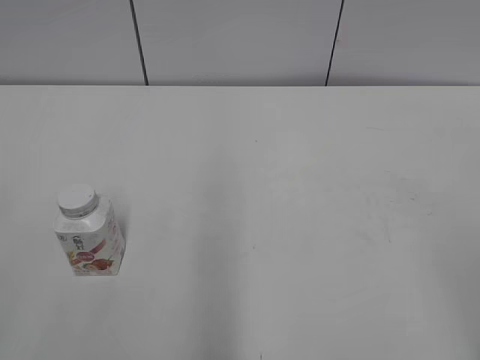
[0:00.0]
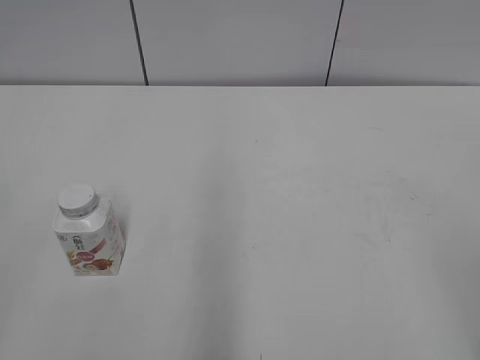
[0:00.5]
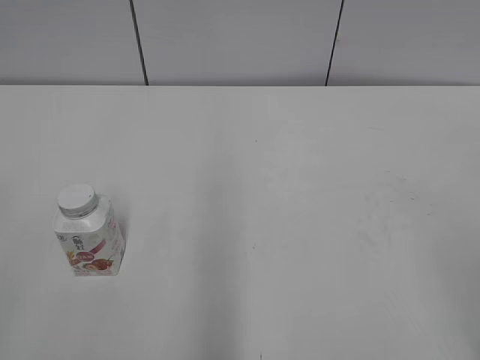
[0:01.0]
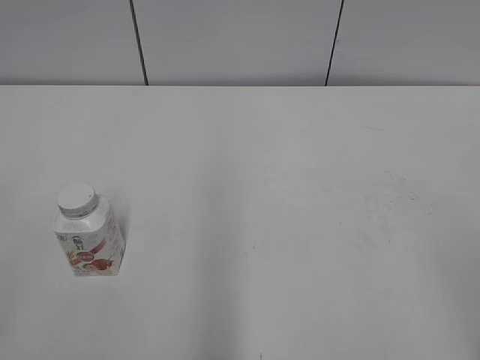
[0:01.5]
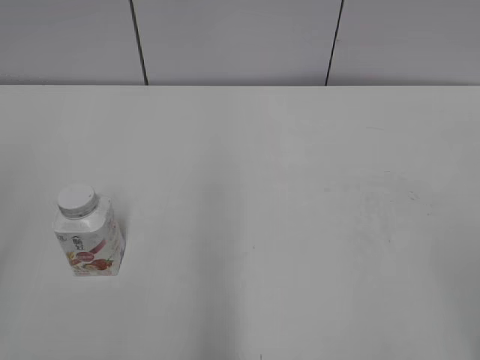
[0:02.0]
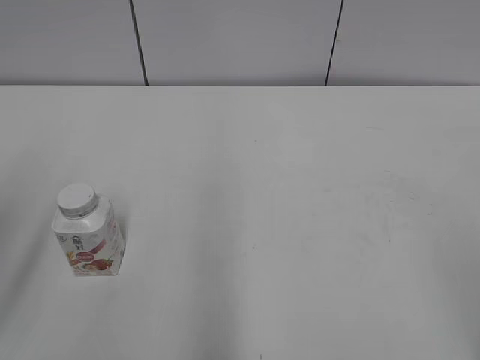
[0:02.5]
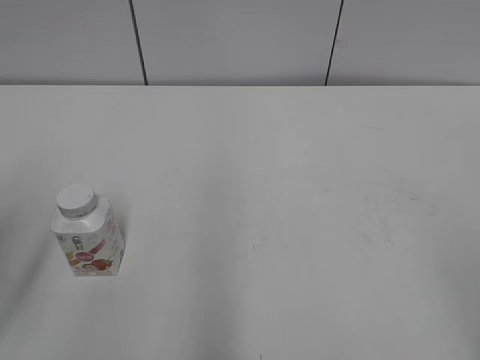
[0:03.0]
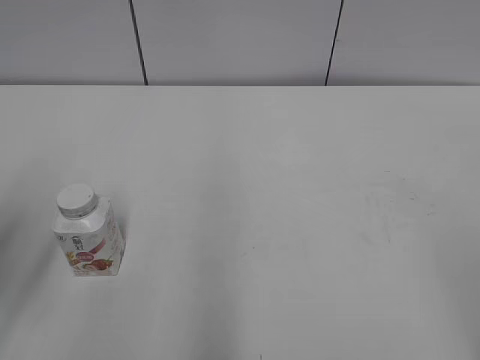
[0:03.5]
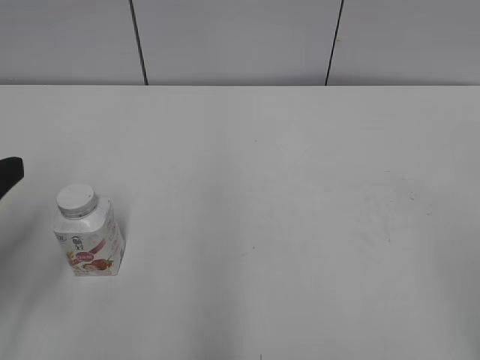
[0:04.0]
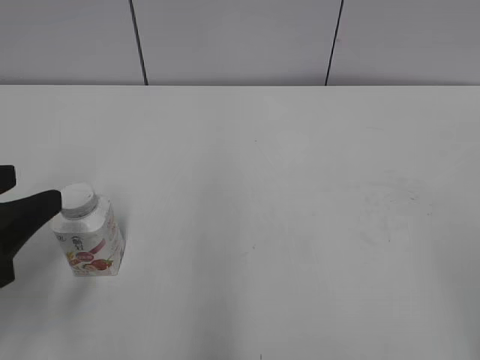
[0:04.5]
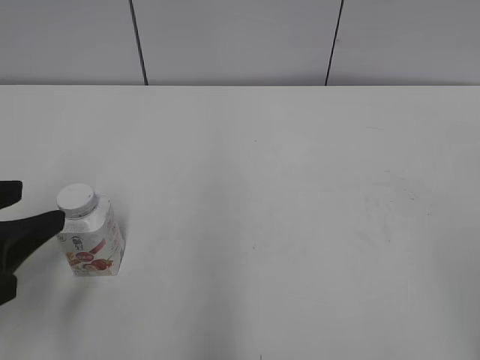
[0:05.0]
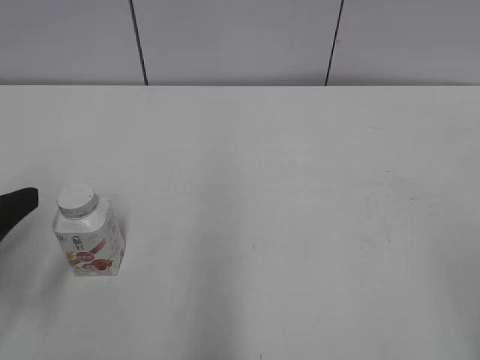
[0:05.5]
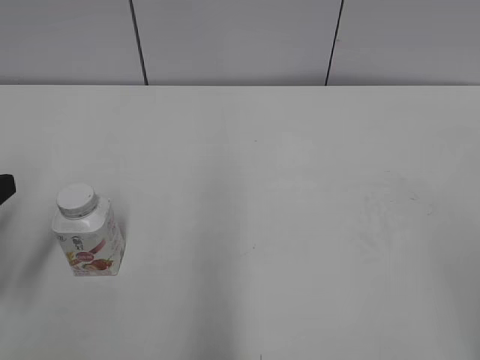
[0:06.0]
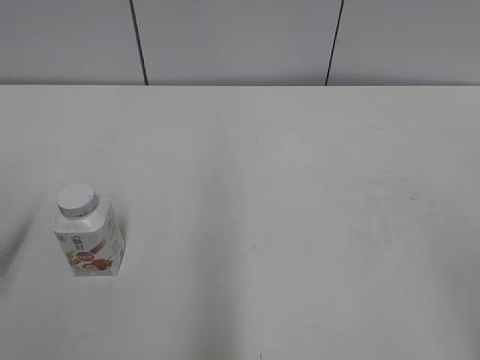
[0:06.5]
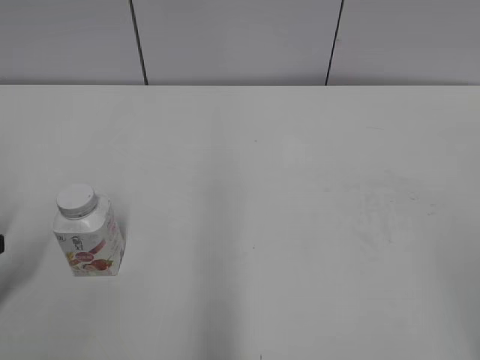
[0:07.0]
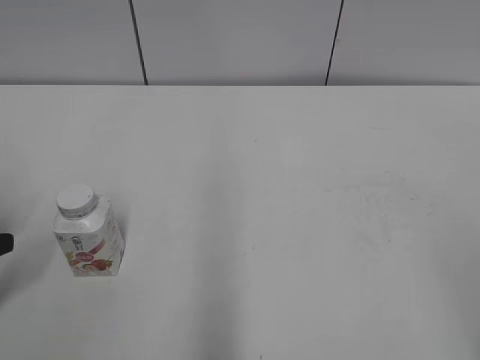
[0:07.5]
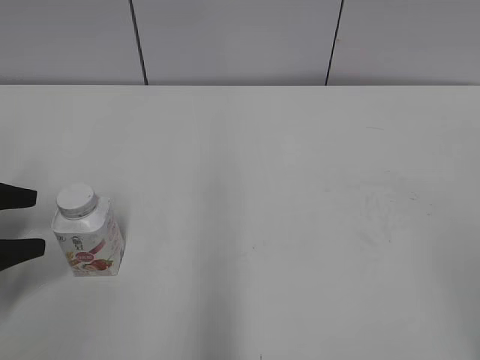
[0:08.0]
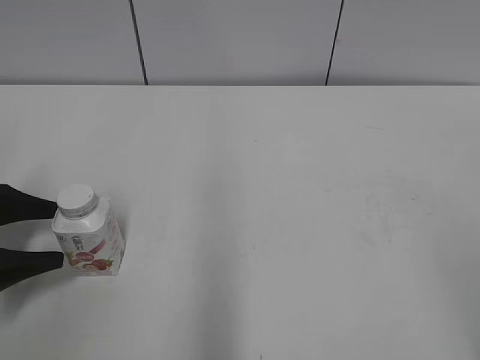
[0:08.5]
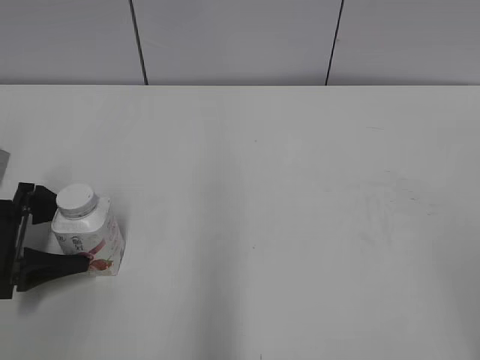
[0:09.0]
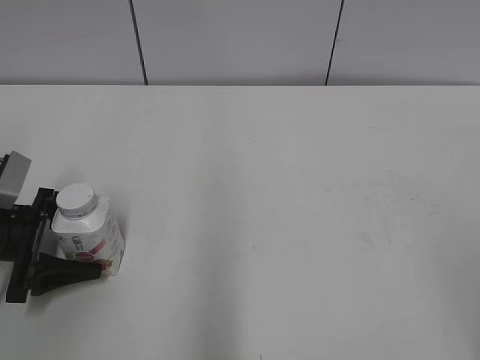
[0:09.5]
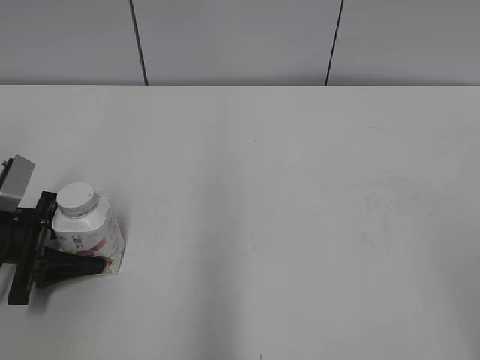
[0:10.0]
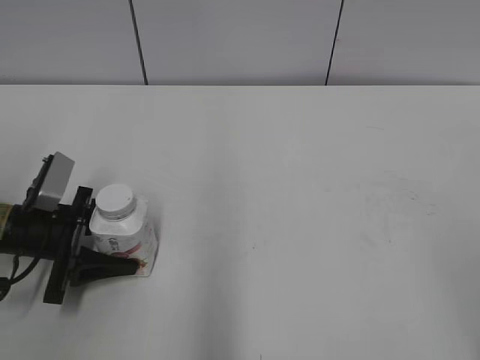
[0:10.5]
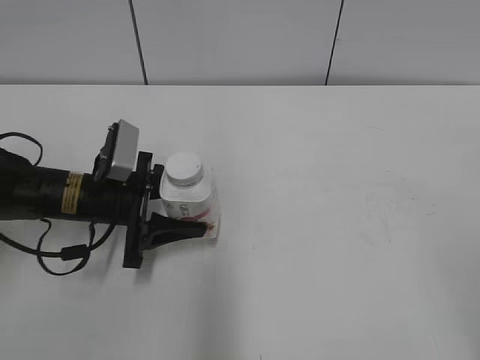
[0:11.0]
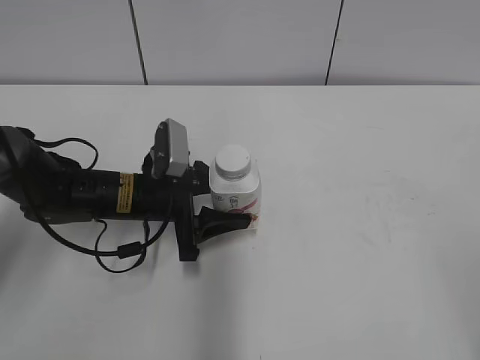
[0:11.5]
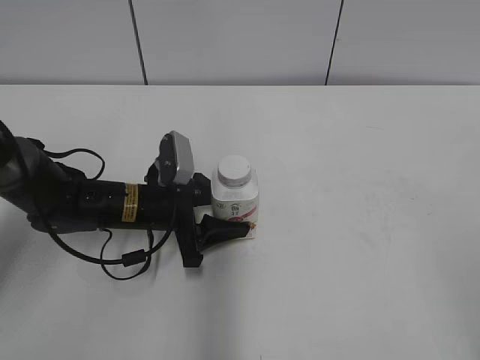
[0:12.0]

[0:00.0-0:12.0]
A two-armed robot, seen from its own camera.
Step, 0:00.0 to 0:10.0: Grasp the bottle and move it to the center of the table with the left gripper.
0:02.0 to 0:04.0: The left gripper travels downward and forward by some 15 cm.
0:04.0 to 0:06.0: The left gripper shifts by approximately 5 cm, and opens up.
0:06.0 to 0:08.0: The left gripper is displaced downward and forward by roughly 10 cm.
0:08.0 to 0:10.0: The left gripper goes approximately 5 cm downward, and closes its fingers.
0:10.0 to 0:12.0: The left gripper travels to the right by approximately 20 cm.

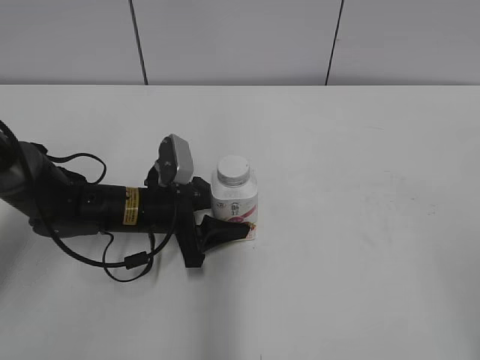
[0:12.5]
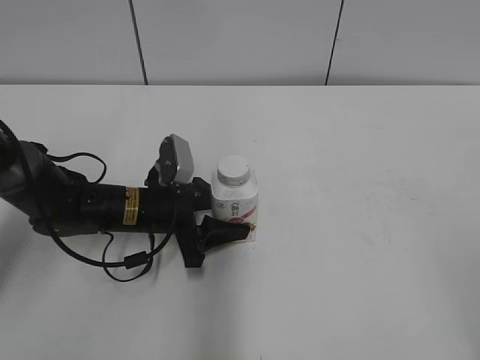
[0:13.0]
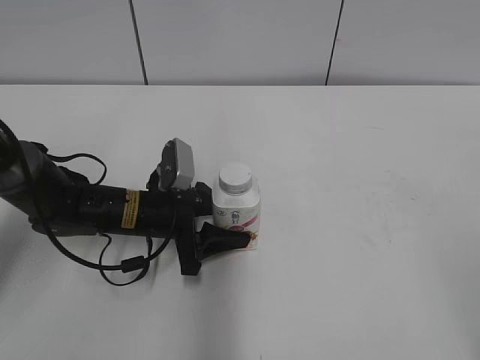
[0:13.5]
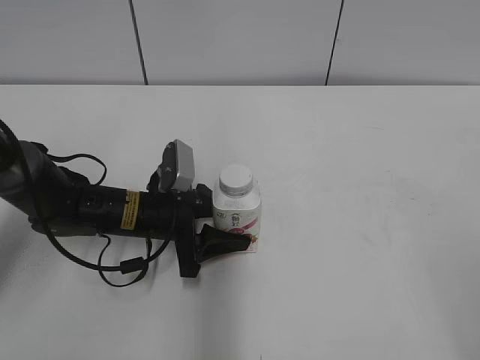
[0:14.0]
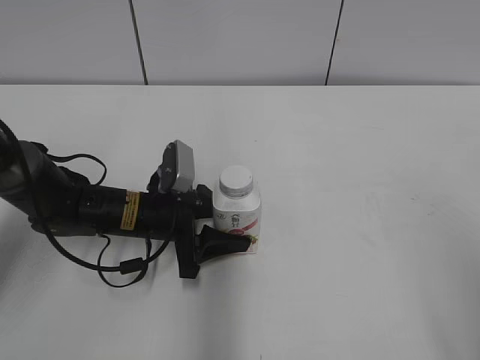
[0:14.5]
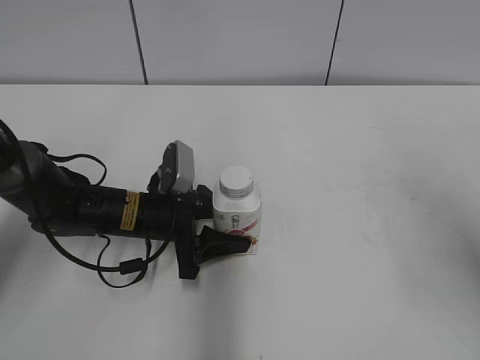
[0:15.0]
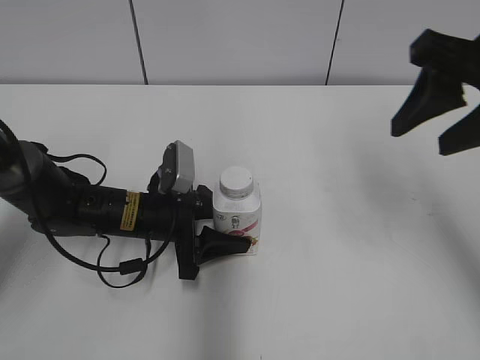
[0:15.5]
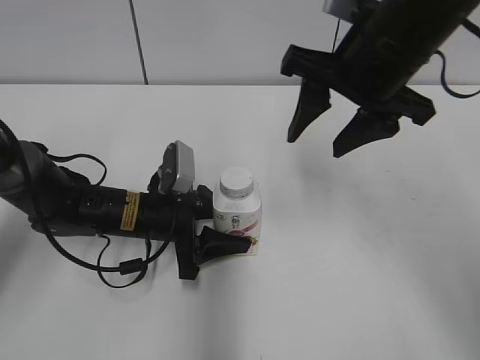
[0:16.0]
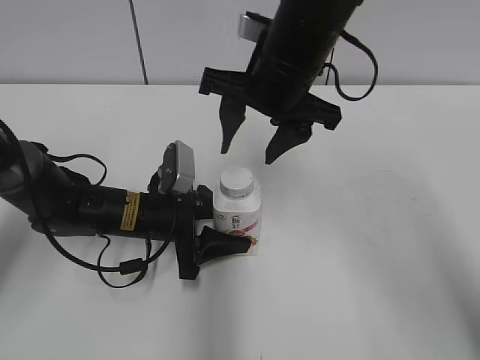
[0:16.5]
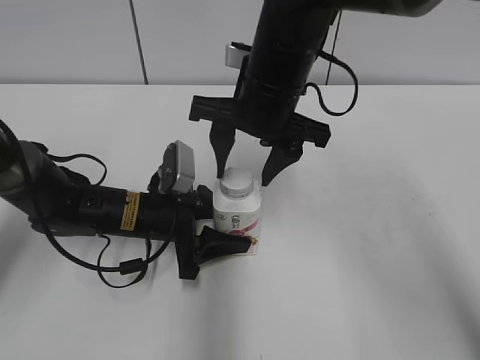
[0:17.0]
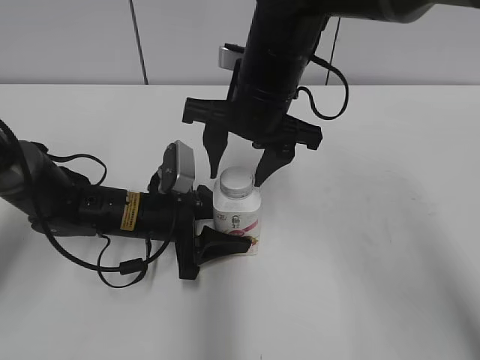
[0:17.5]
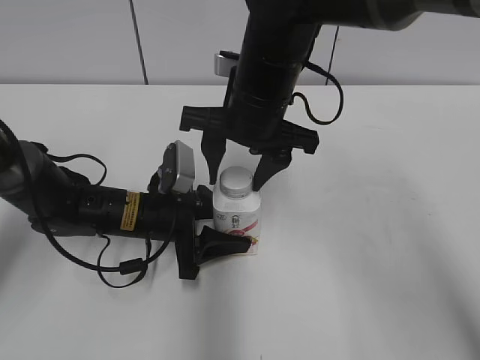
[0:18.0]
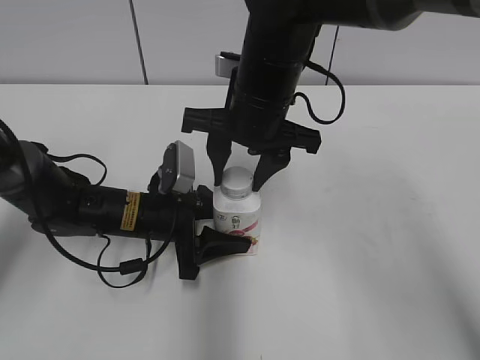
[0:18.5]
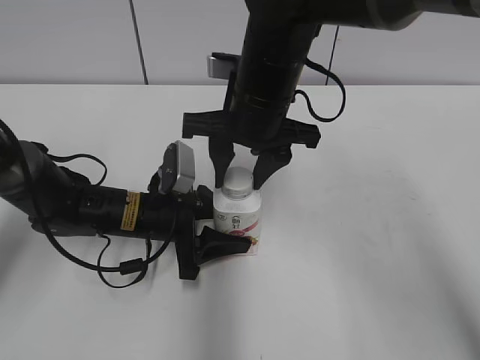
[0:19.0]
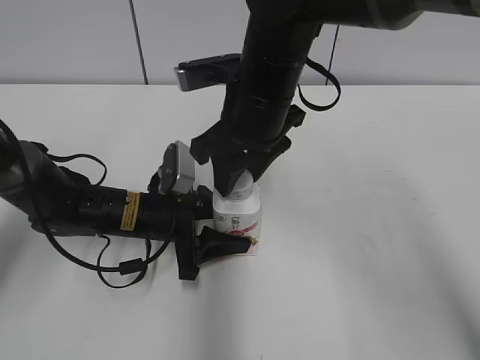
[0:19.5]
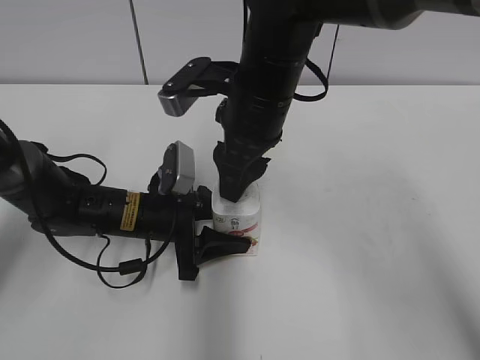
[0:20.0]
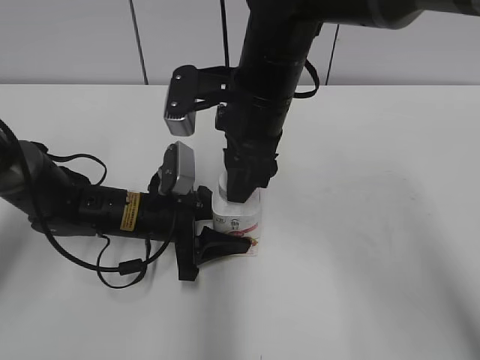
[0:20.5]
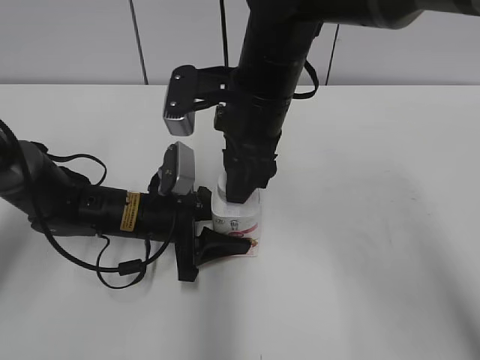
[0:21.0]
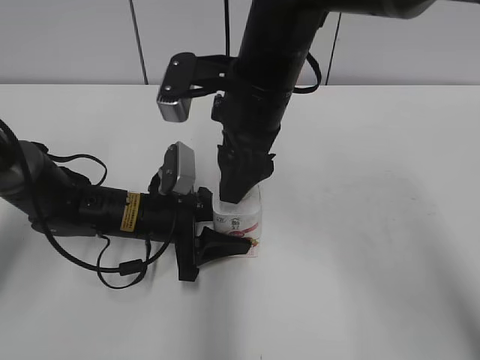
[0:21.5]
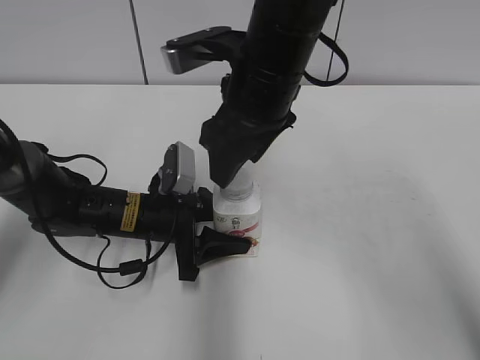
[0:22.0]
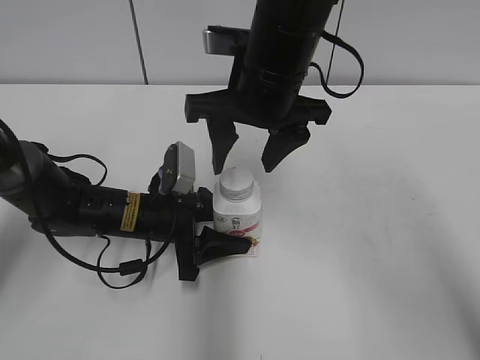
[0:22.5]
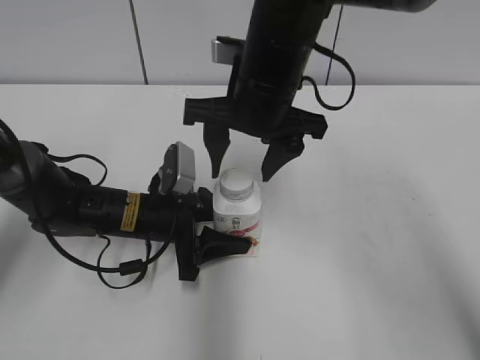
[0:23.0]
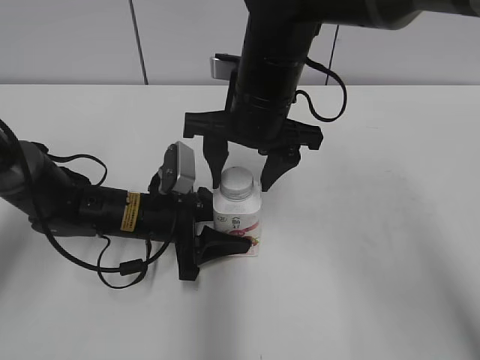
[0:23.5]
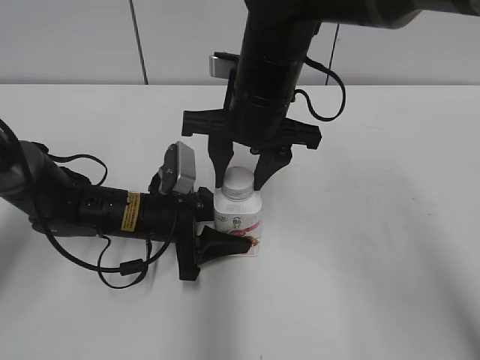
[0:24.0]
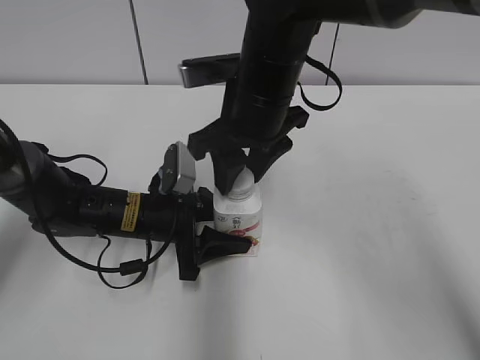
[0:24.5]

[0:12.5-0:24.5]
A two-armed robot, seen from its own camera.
0:12.5 to 0:14.5: The right gripper ends up roughly 5 cm from where it was.
0:14.5 to 0:16.5: The right gripper shifts some 35 cm forward and to the left.
0:16.5 to 0:18.5: The right gripper closes up.
0:20.5 to 0:22.5: The right gripper opens.
0:22.5 to 0:24.5: The right gripper closes.

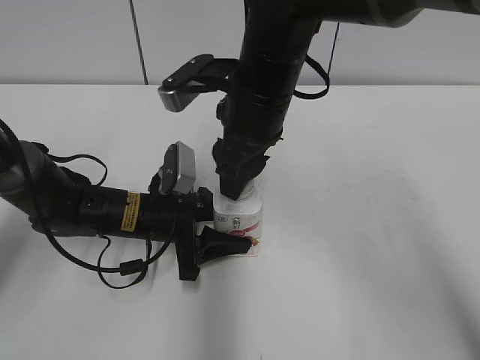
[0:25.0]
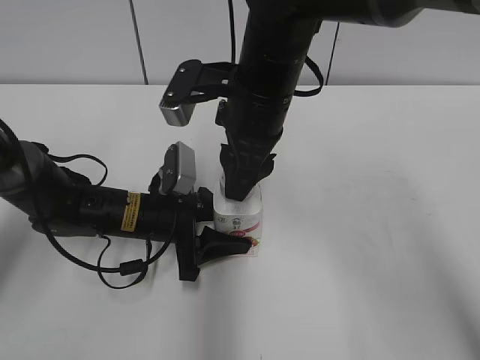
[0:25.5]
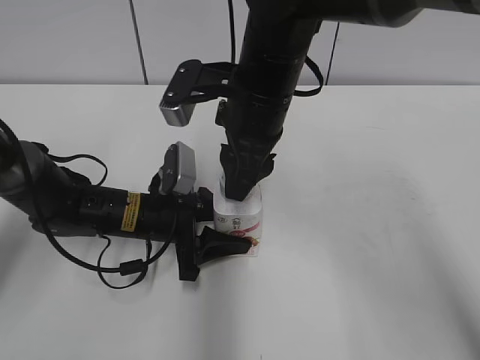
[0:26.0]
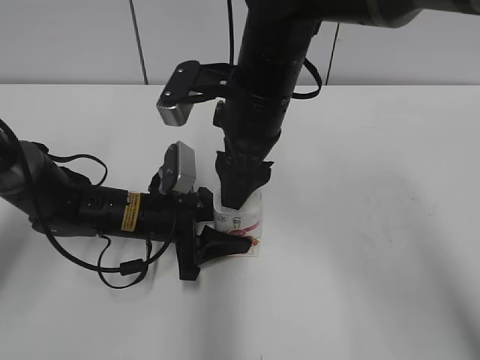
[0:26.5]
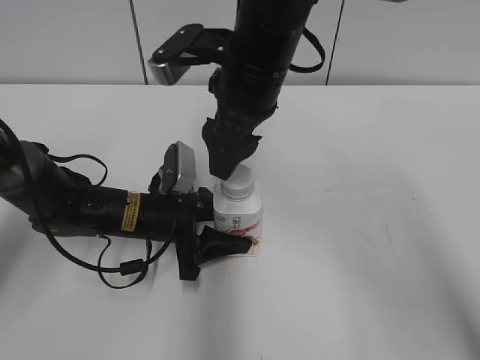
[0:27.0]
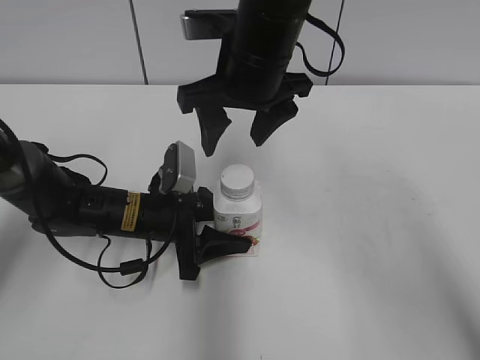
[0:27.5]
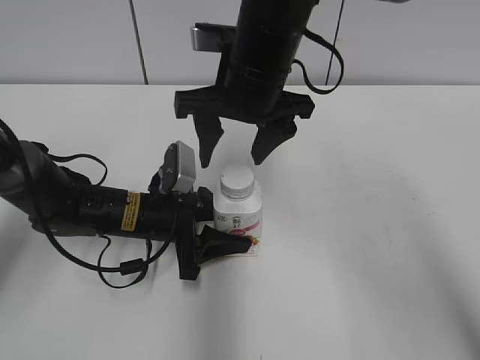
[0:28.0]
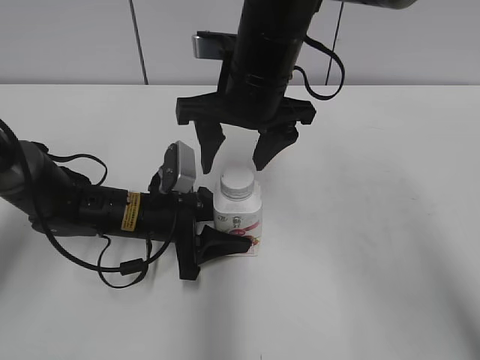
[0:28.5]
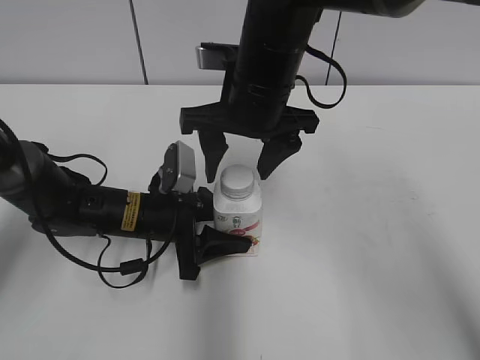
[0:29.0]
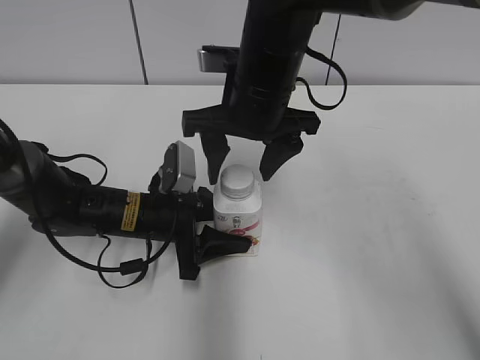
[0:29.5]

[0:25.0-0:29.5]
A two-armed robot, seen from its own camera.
0:25.0 to 0:27.0: The right gripper opens its fingers.
